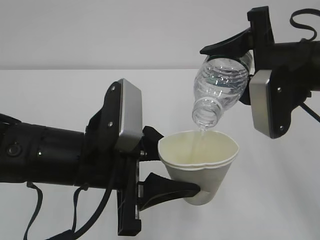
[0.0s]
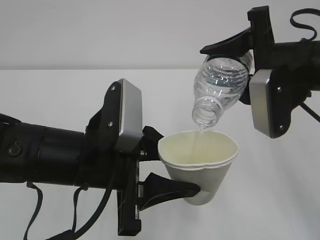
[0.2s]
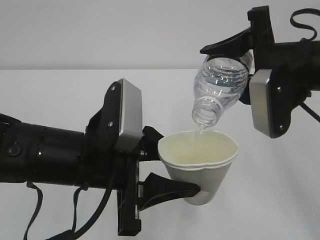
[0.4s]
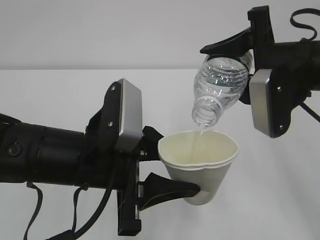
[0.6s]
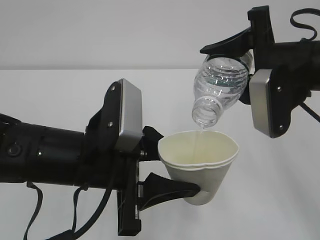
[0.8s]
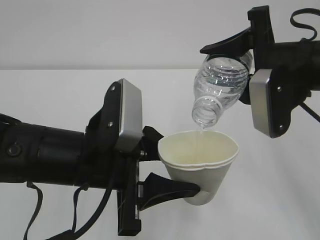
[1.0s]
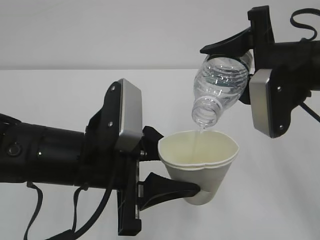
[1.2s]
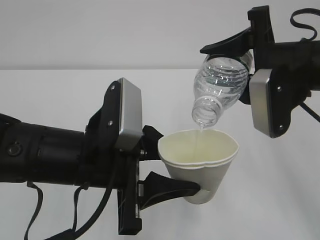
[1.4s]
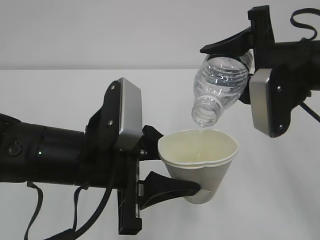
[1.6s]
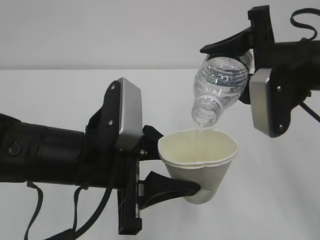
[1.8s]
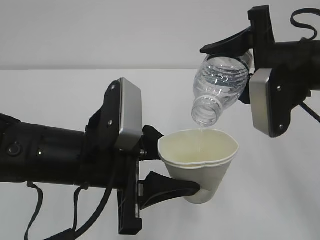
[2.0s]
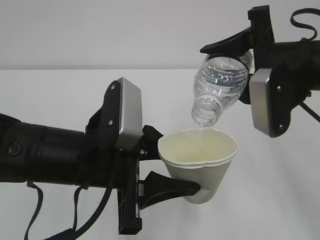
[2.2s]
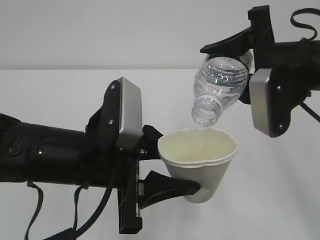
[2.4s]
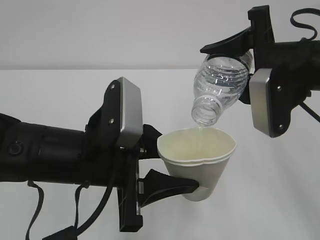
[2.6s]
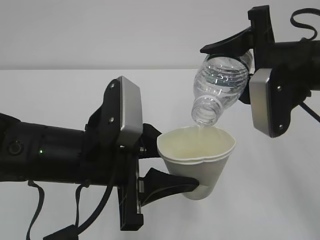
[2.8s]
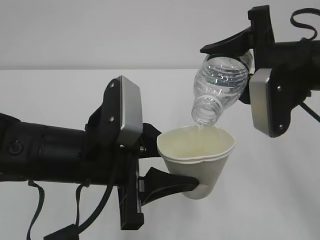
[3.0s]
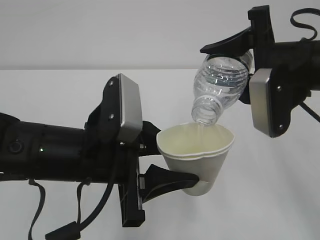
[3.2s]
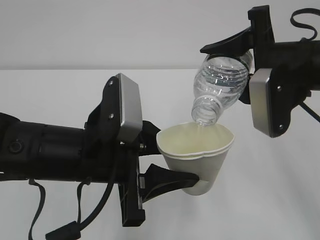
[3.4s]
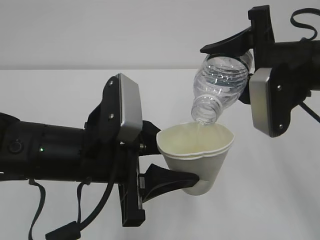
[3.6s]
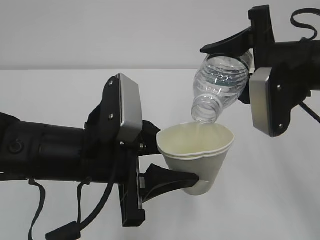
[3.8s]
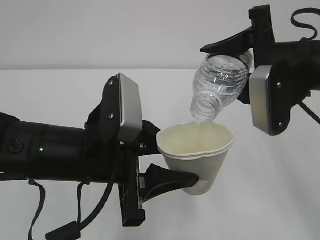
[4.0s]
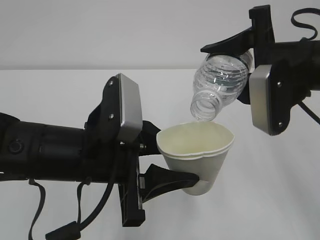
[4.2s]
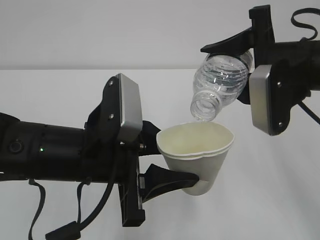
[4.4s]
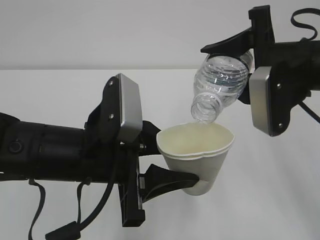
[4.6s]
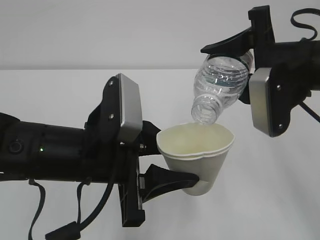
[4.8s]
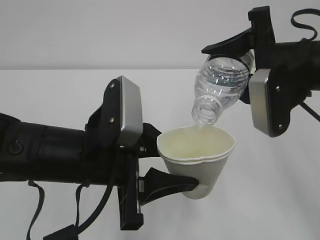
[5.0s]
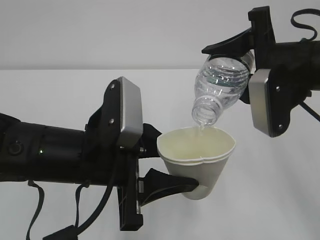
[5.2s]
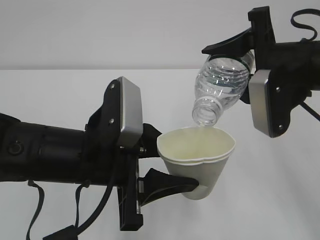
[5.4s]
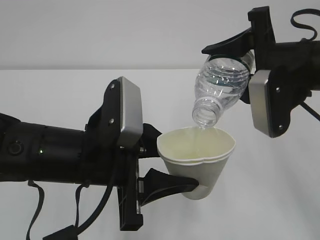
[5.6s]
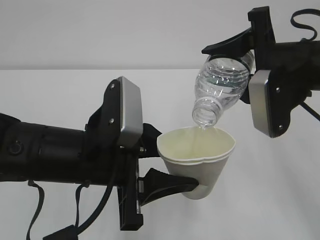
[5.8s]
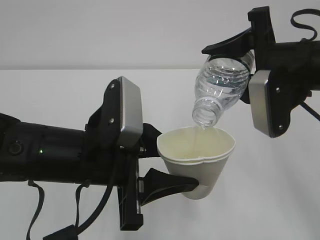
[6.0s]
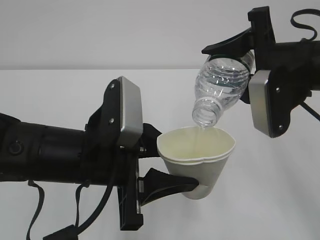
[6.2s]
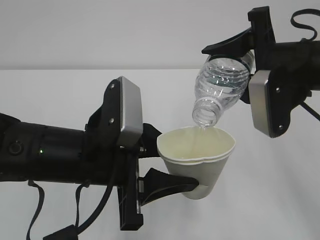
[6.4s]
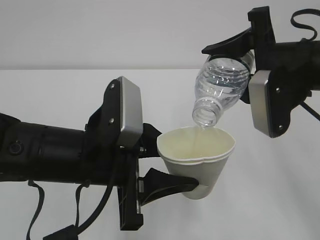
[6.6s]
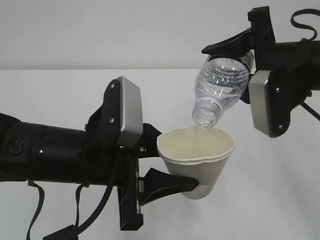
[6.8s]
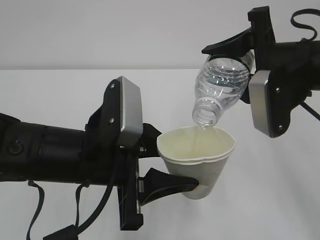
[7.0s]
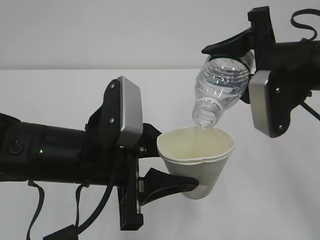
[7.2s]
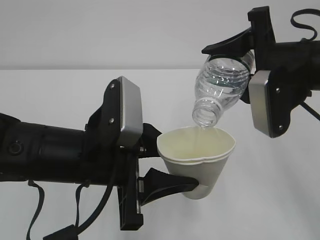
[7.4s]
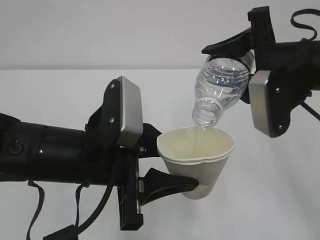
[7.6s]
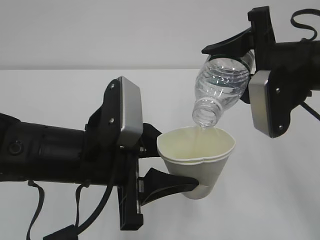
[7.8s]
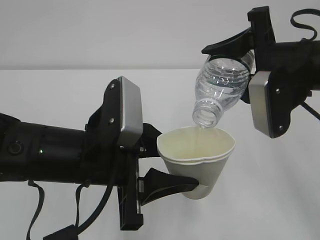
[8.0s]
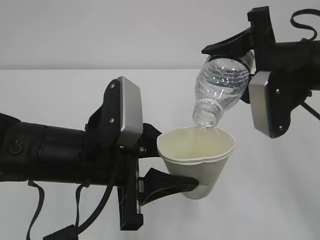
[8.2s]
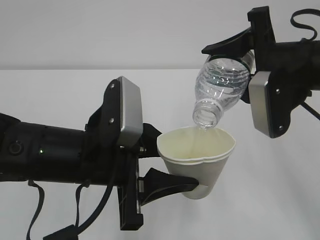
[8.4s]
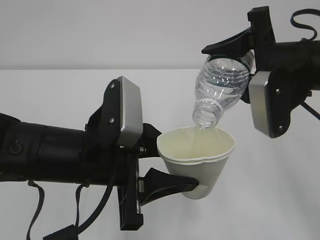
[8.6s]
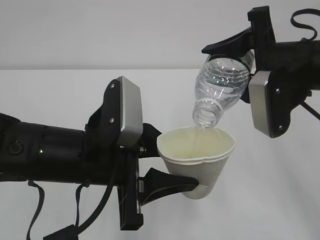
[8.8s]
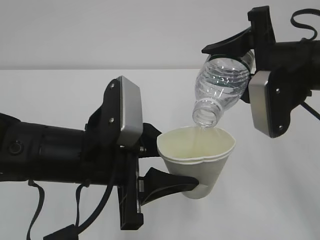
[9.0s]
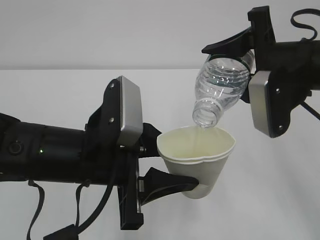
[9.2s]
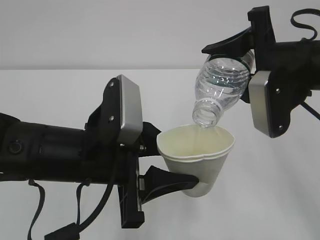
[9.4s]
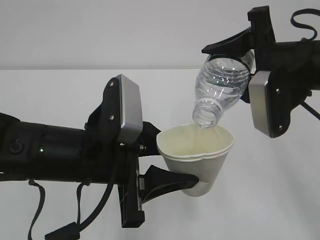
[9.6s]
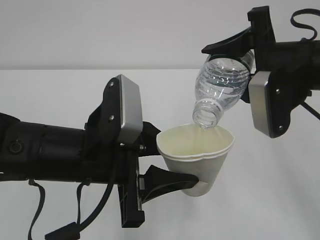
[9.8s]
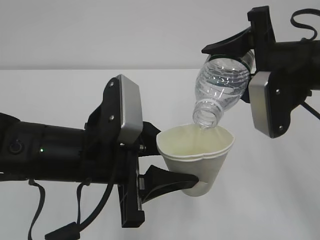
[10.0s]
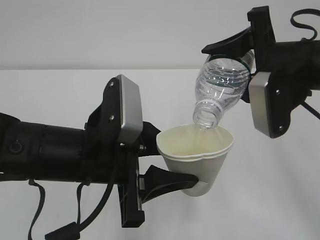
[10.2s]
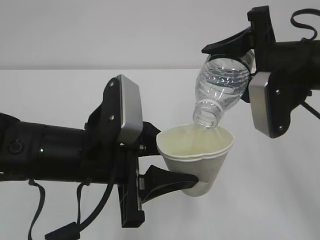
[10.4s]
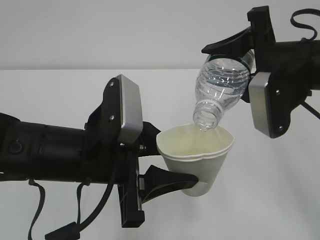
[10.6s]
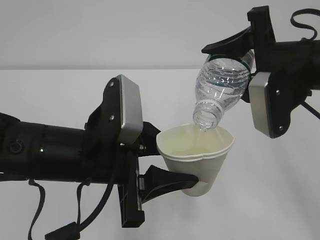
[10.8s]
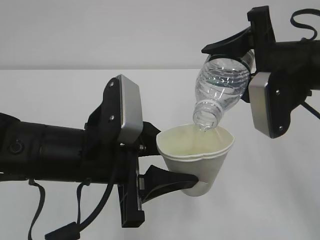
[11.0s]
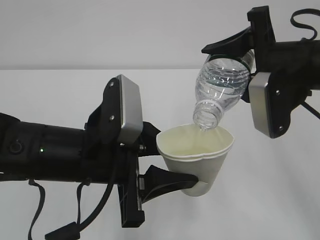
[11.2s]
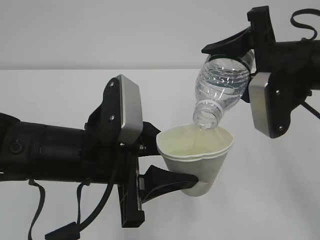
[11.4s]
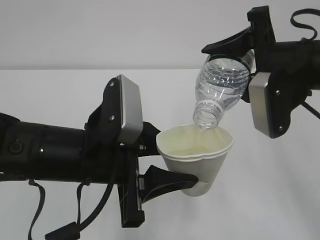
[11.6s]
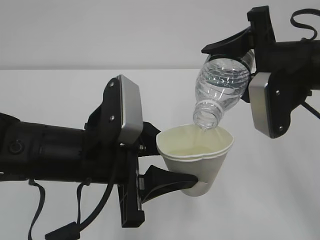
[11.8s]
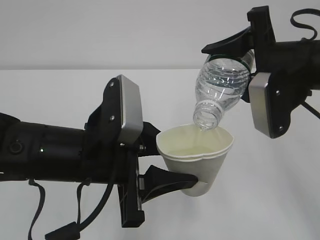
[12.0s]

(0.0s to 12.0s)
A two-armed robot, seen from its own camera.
0.0s - 12.0s: Both grippers stay about where they are.

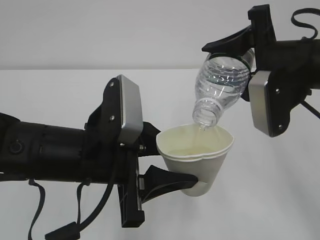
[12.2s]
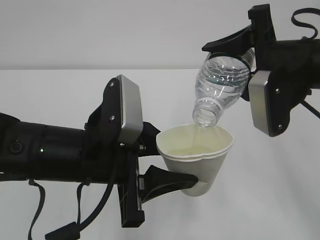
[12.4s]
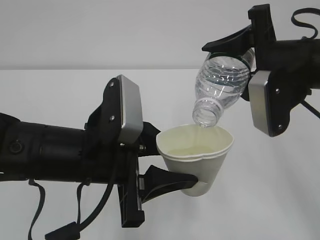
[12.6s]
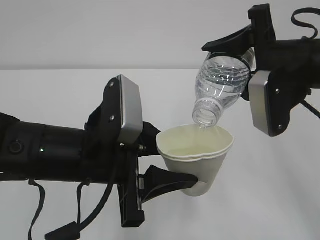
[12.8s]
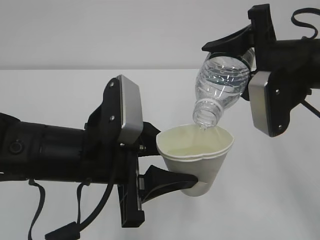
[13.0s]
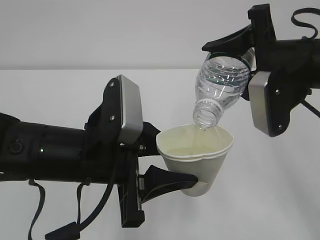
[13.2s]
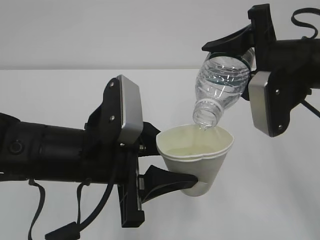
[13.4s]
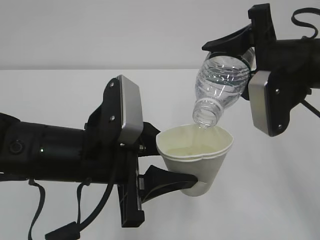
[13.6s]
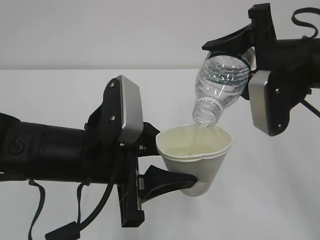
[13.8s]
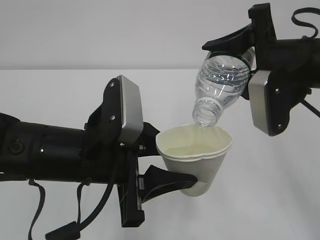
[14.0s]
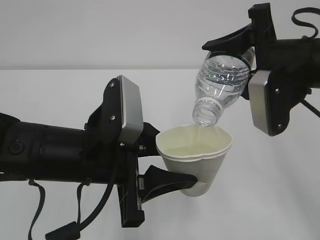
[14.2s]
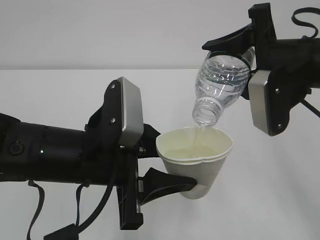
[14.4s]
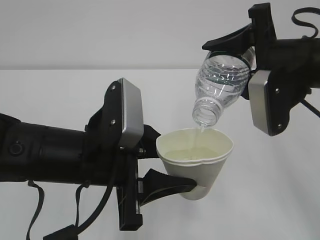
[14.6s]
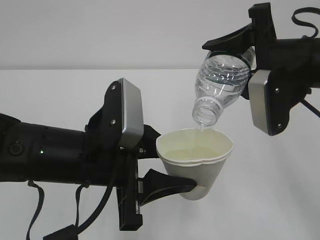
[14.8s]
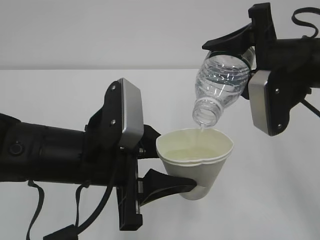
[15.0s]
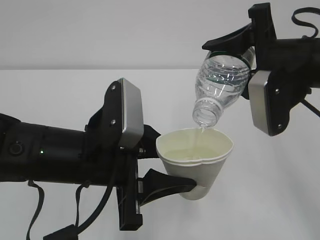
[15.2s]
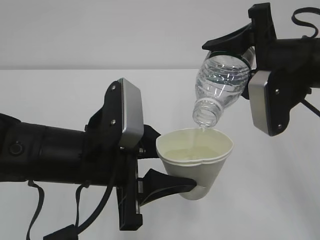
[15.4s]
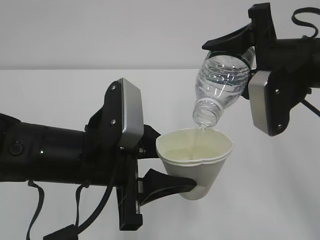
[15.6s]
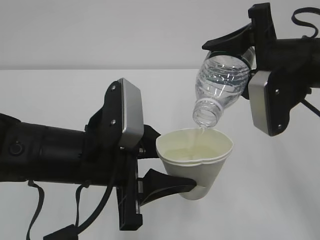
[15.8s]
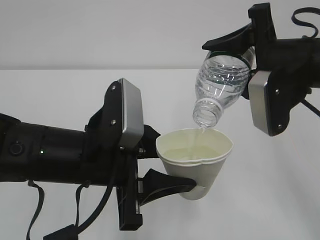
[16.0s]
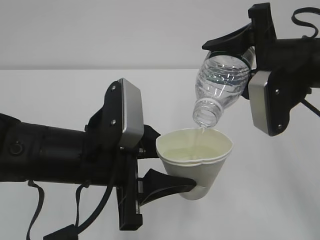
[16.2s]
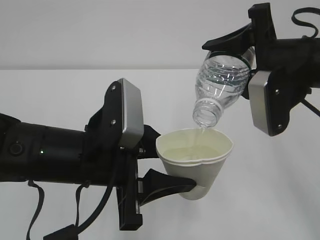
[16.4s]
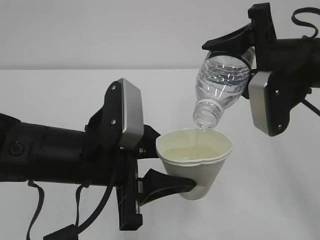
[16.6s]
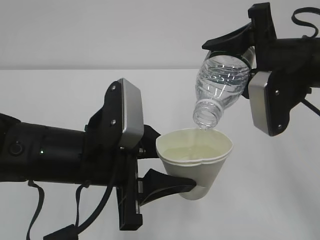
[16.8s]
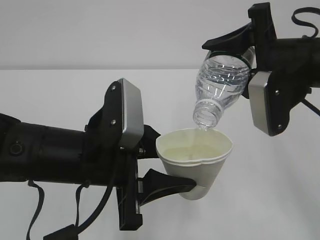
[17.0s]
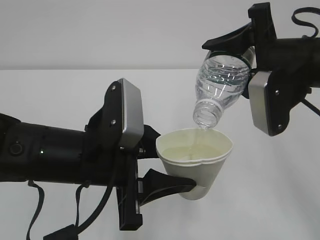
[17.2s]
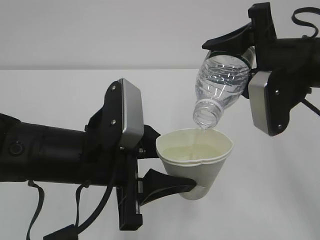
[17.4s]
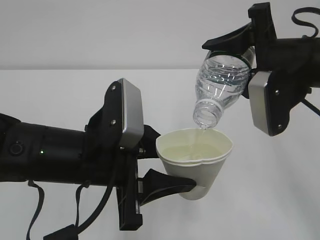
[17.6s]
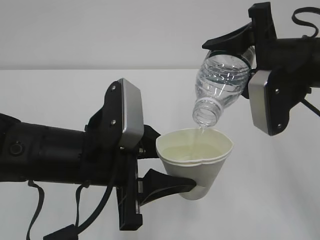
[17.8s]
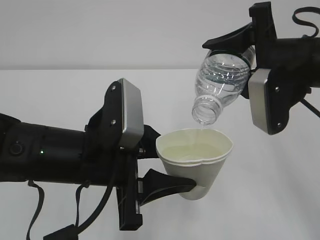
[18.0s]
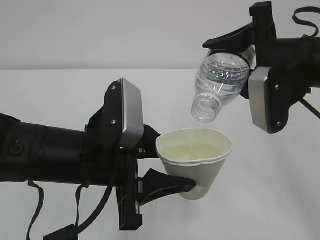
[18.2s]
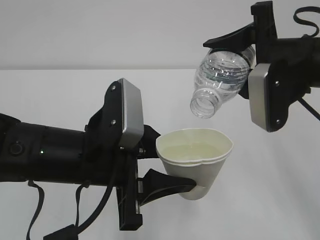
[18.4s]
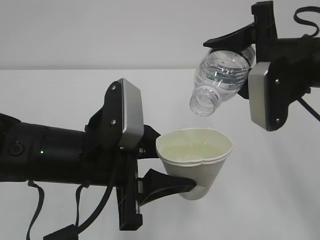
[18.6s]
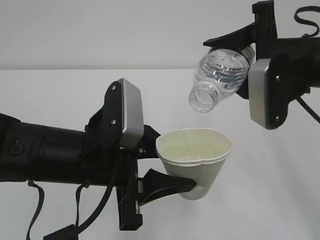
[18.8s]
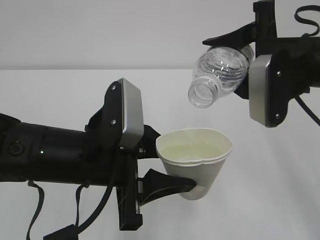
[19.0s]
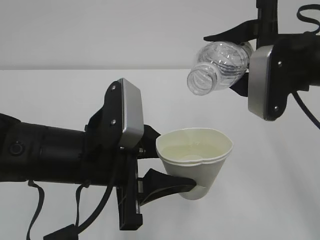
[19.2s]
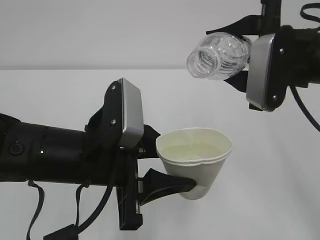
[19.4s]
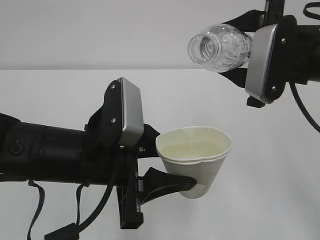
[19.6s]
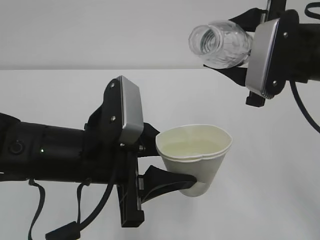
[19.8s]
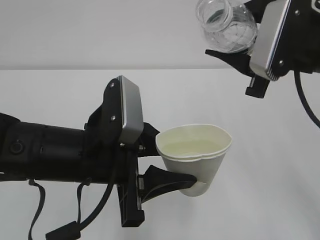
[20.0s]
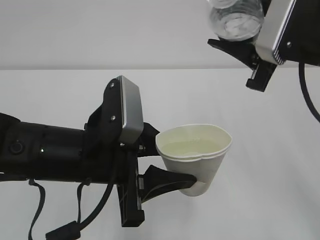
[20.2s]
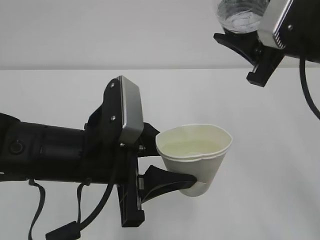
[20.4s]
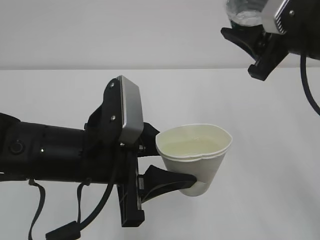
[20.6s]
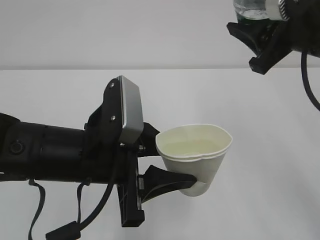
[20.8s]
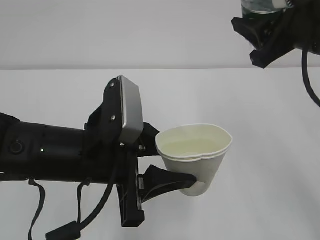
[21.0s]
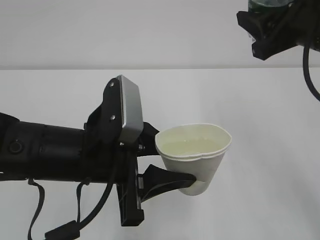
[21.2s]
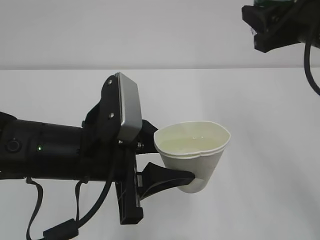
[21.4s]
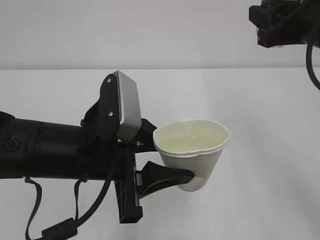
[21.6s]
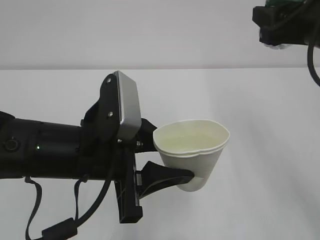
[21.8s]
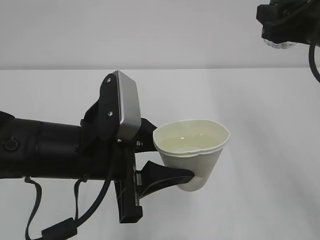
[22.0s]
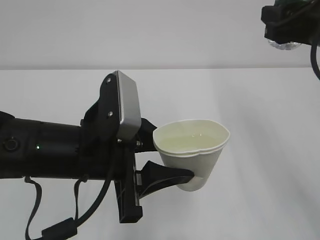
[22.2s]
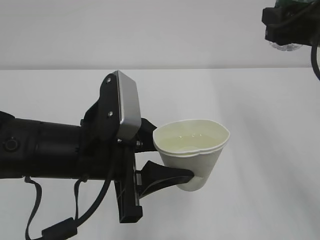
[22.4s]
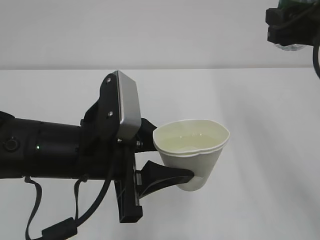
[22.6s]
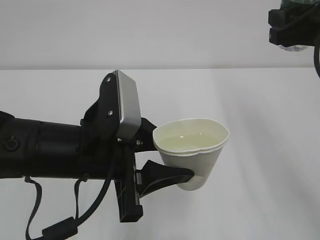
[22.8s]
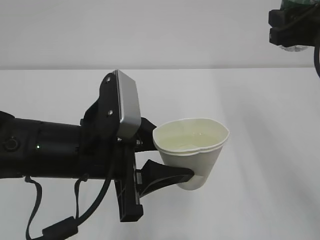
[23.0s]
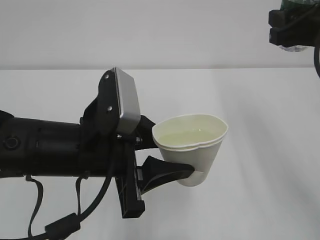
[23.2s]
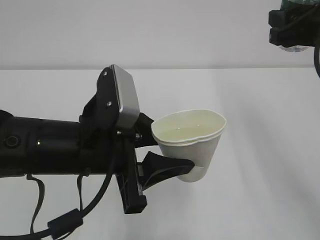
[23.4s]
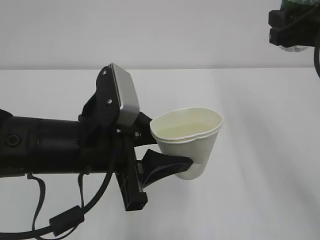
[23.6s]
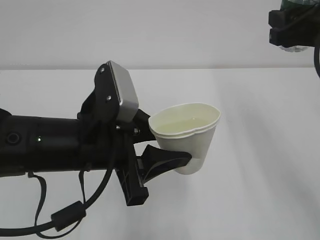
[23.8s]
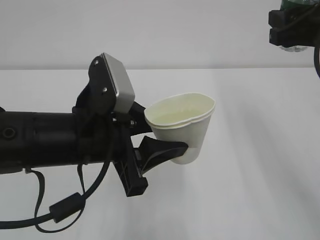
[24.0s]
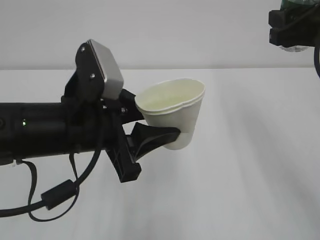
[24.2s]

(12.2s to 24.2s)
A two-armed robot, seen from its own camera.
12.2s - 18.2s: The two grippers keep their place.
